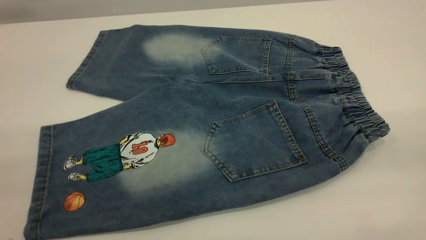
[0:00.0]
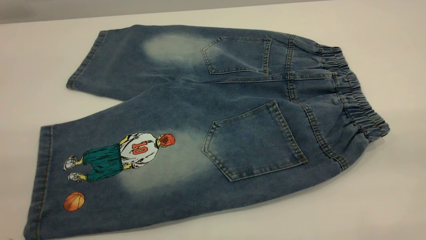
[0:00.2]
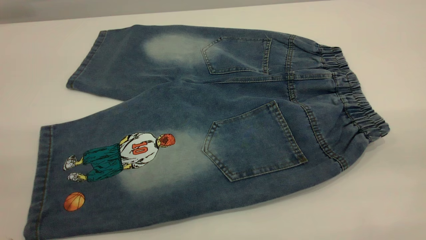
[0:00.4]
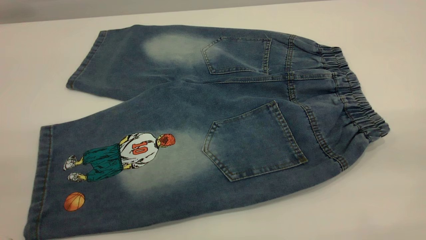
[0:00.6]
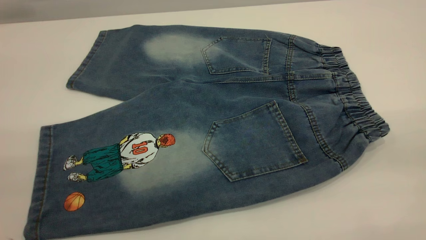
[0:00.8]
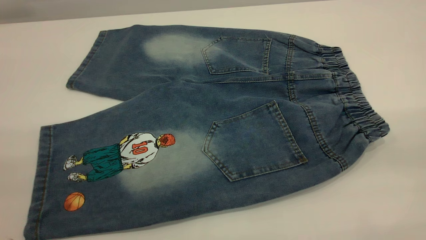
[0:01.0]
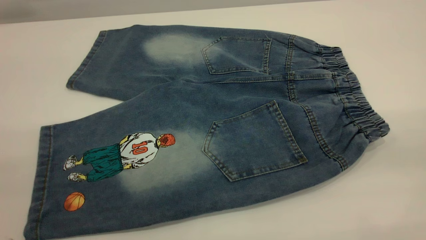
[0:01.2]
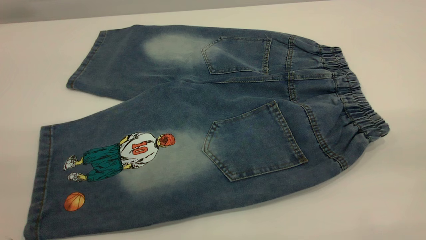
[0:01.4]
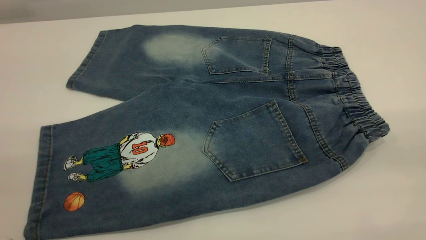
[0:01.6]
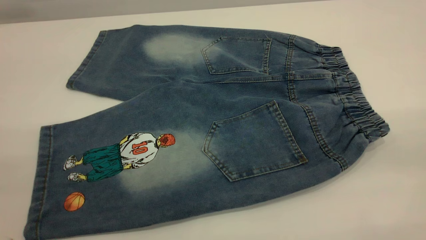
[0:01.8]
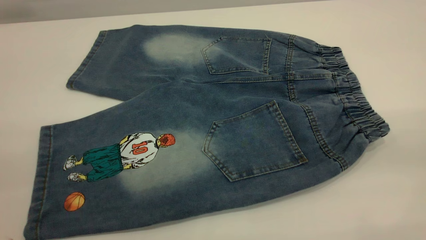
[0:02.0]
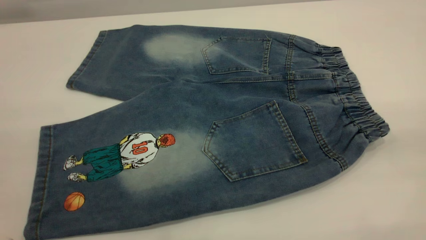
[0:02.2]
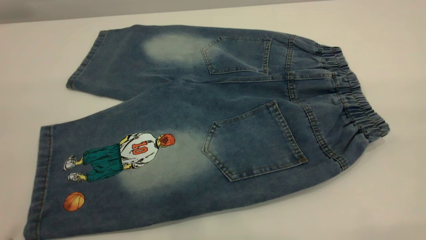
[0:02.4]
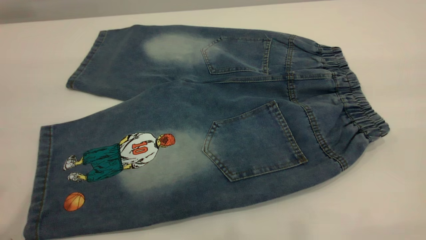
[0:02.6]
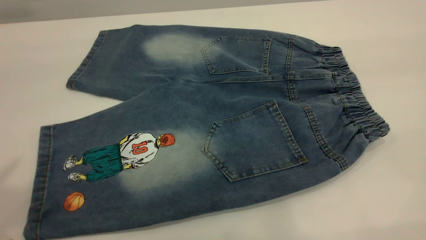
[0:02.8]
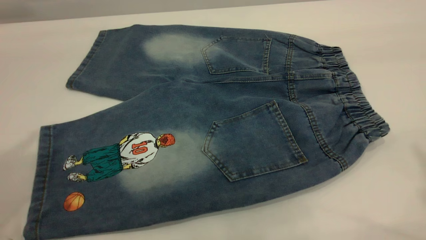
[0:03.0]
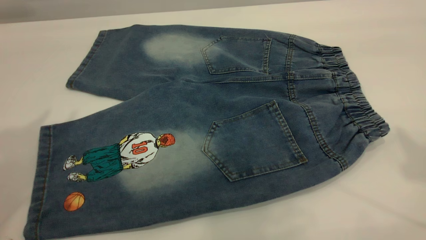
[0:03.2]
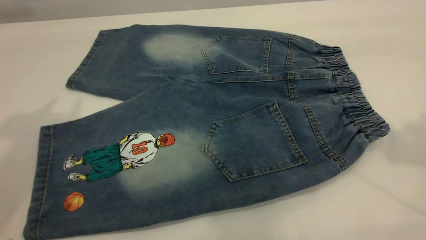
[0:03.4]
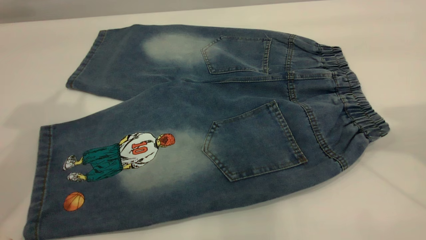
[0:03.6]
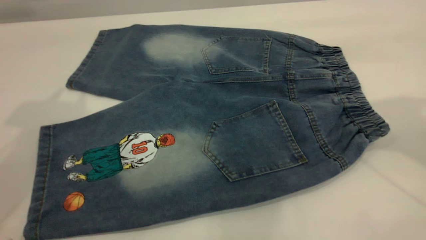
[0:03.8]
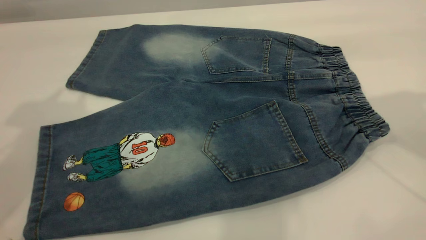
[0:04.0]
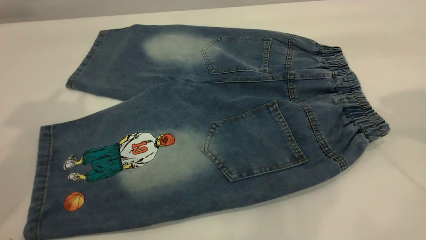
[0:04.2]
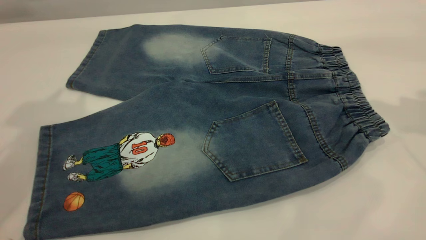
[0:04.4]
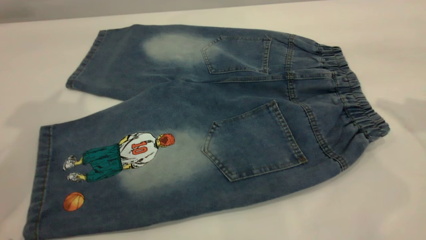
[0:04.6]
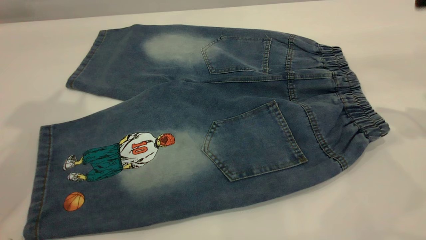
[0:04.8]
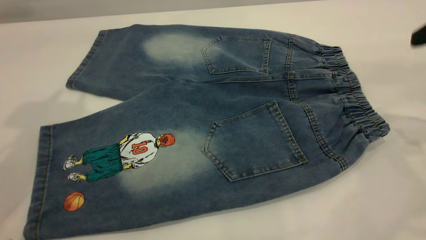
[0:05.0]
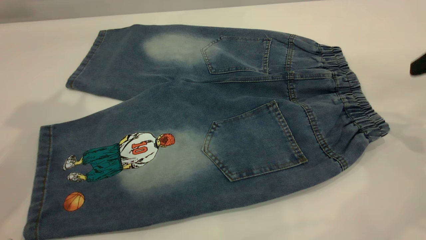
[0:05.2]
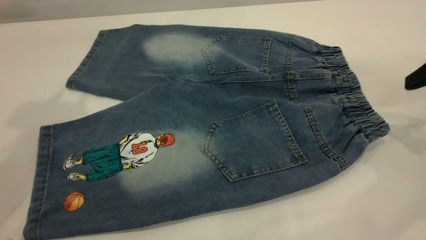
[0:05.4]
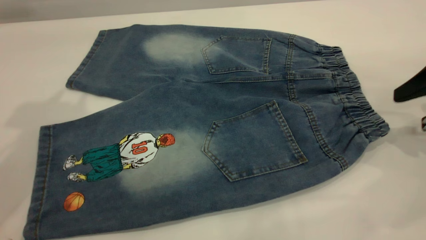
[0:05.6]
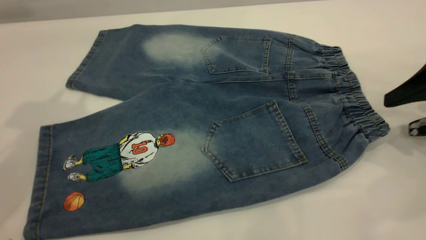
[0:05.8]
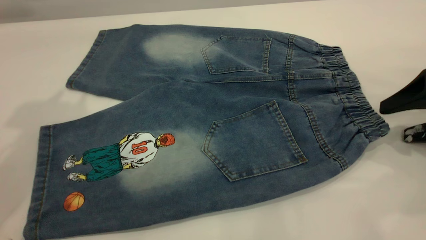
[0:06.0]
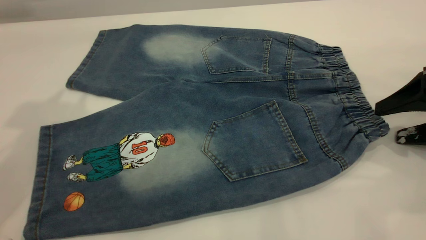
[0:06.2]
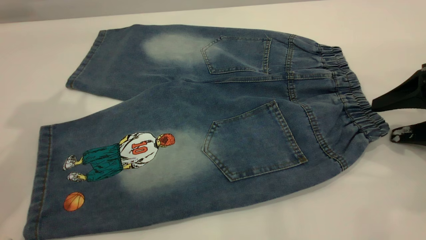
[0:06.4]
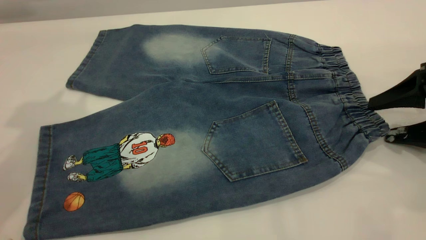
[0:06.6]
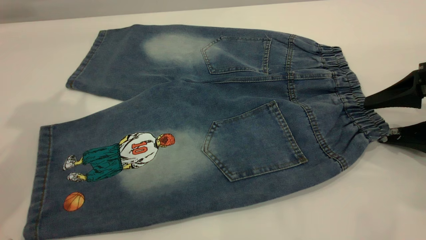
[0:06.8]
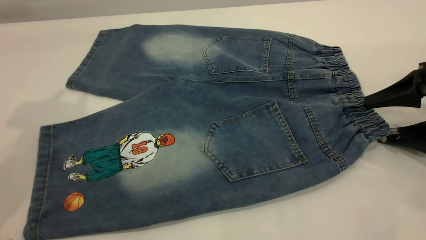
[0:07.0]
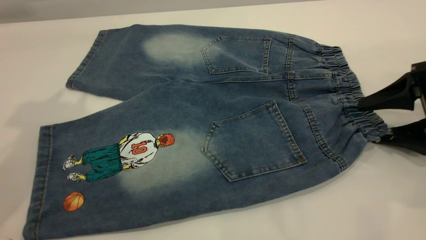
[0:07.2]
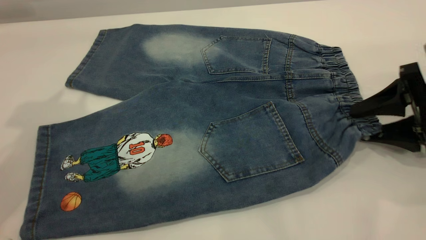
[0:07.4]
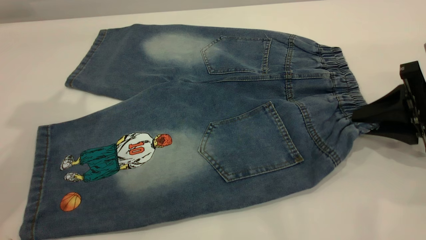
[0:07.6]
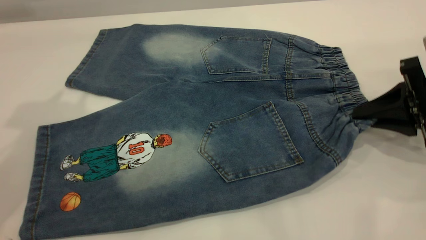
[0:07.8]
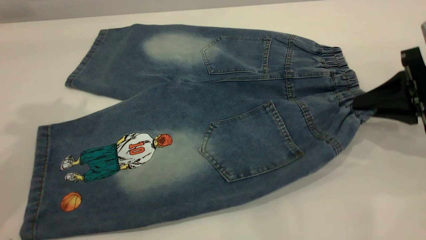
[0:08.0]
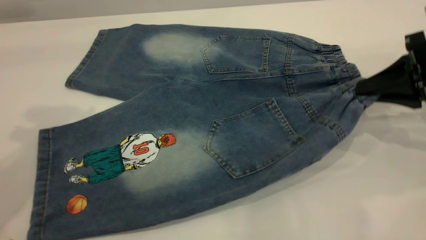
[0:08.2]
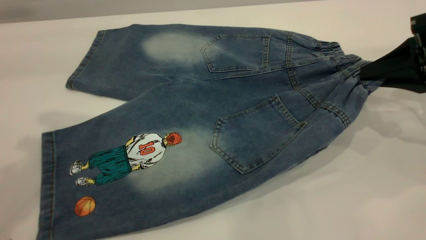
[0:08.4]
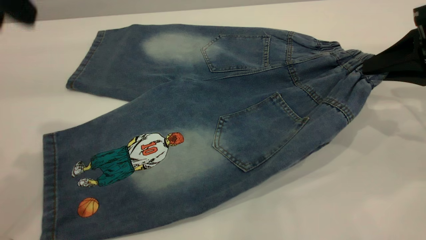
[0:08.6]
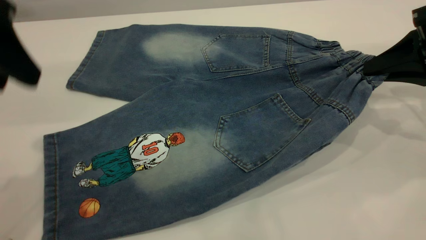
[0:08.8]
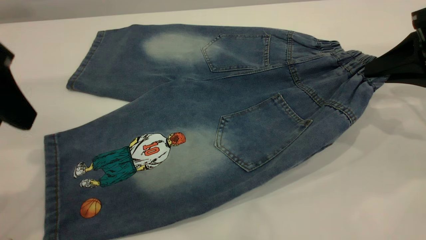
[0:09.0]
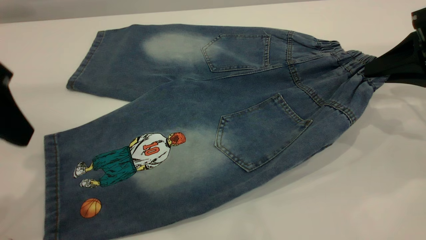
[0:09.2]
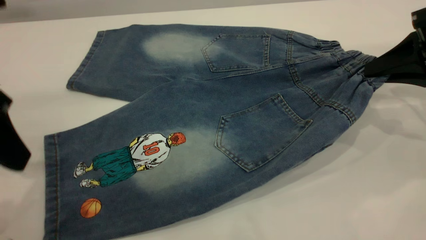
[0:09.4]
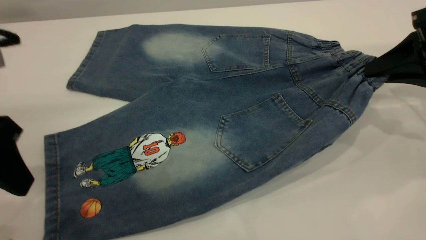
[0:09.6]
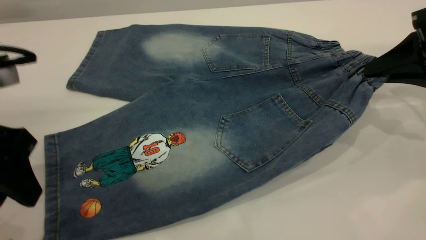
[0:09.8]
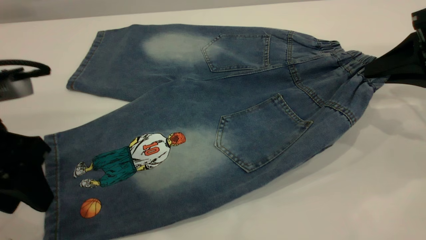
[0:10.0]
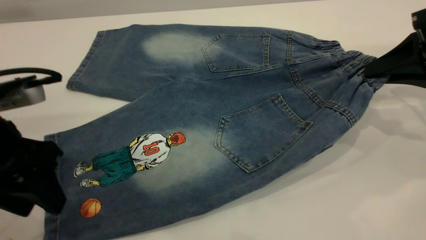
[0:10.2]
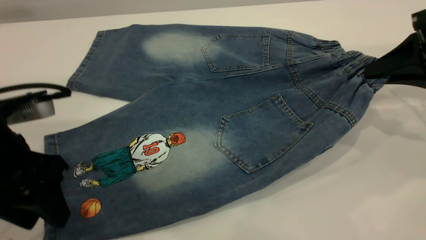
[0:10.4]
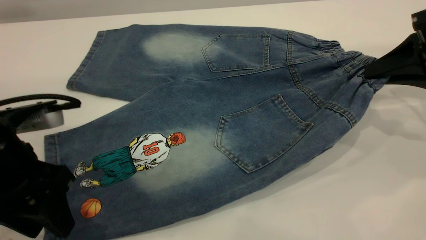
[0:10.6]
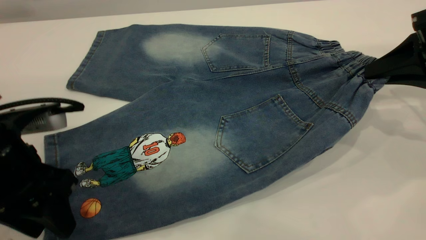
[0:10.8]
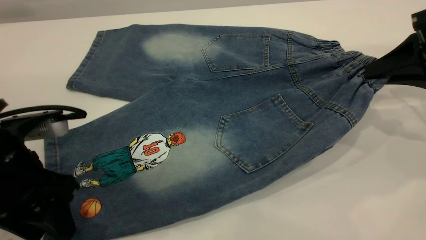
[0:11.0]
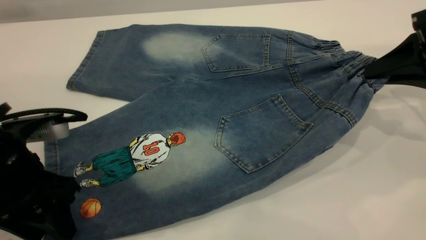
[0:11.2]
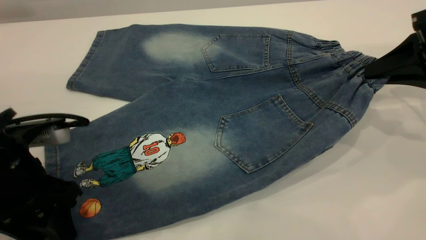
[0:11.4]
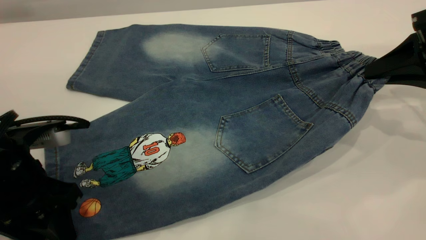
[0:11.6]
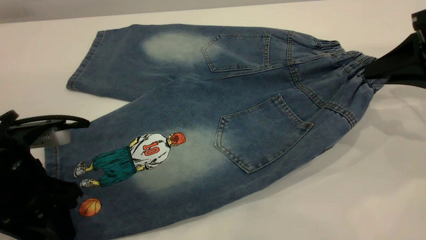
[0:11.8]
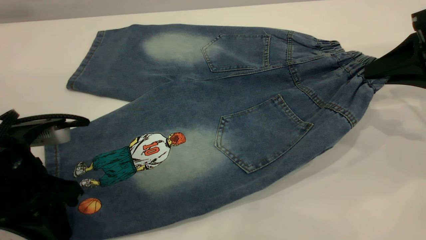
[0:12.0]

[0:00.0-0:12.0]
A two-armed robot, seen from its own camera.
0:00.0 to 0:01.6: Both grippers stay about where they are.
0:04.4 to 0:06.0: The right gripper moves downward, some 20 cm.
0:06.0 to 0:07.6: The right gripper closes its fingers.
0:07.6 to 0:09.0: The right gripper goes approximately 5 cm upward; the left gripper goes some 15 cm downward and backward.
0:09.0 to 0:10.4: The left gripper travels downward by about 10 cm.
0:10.4 to 0:12.0: The left gripper closes up.

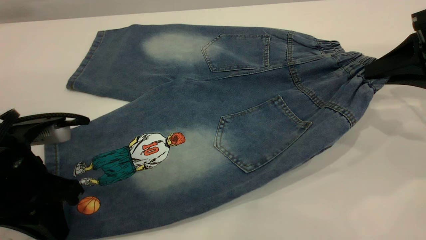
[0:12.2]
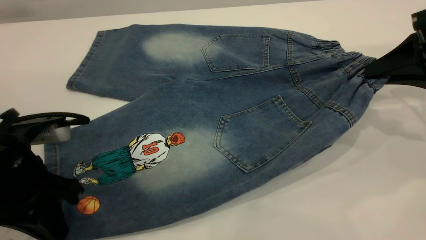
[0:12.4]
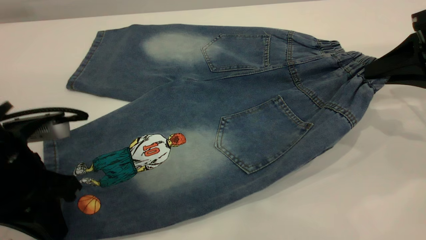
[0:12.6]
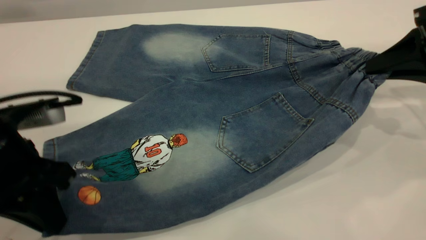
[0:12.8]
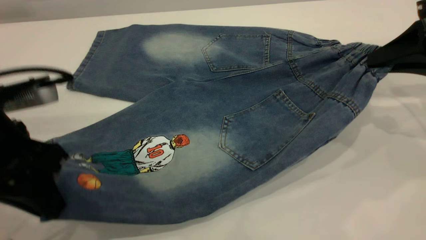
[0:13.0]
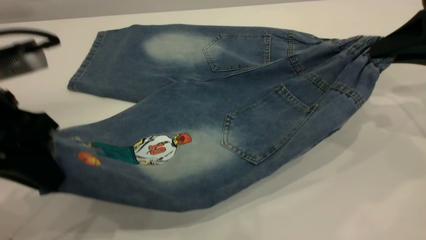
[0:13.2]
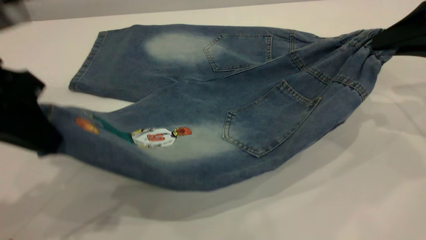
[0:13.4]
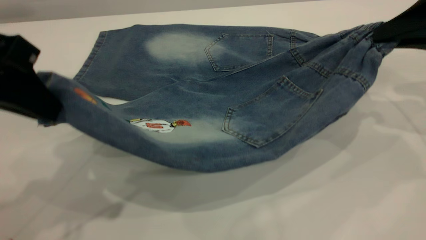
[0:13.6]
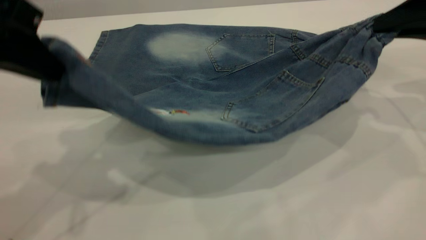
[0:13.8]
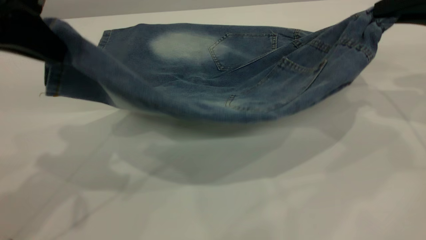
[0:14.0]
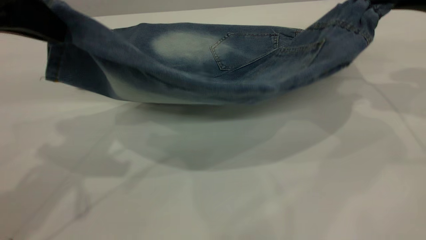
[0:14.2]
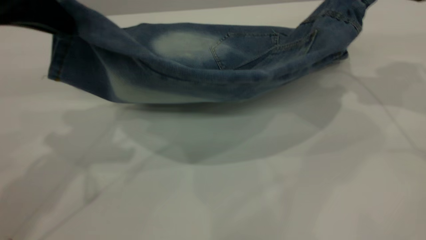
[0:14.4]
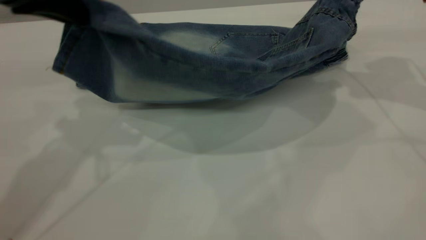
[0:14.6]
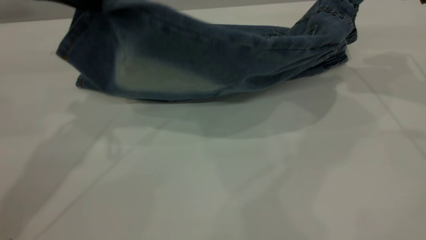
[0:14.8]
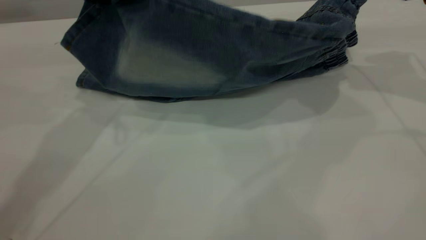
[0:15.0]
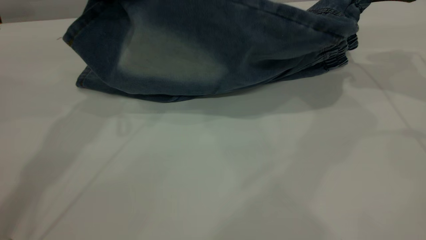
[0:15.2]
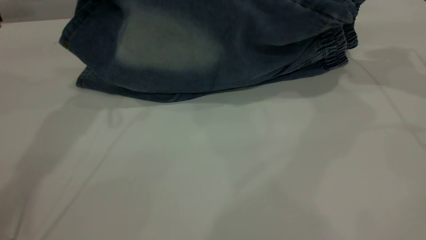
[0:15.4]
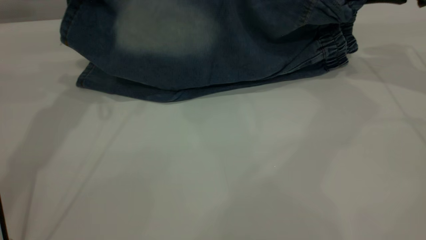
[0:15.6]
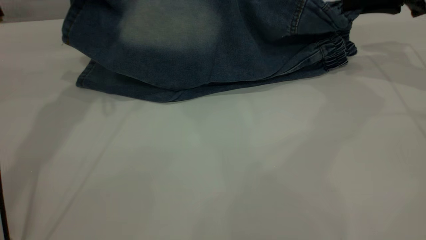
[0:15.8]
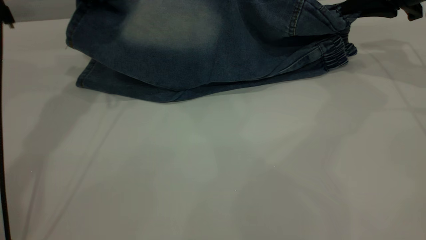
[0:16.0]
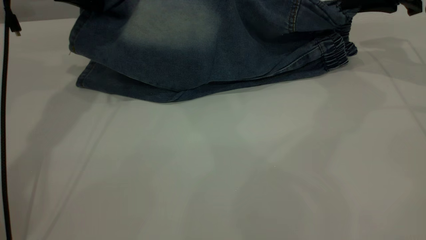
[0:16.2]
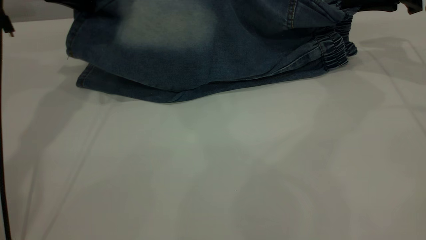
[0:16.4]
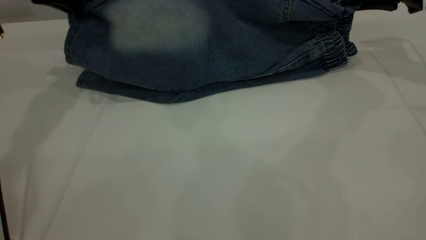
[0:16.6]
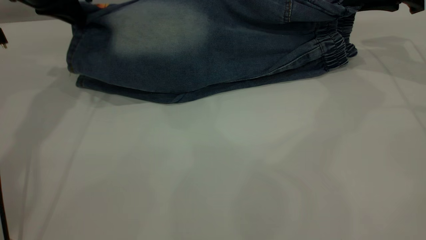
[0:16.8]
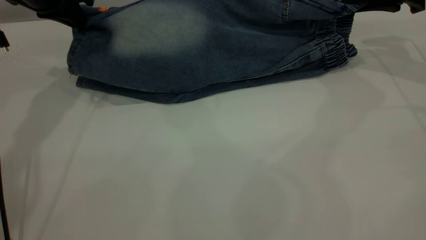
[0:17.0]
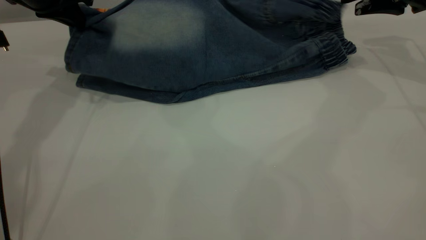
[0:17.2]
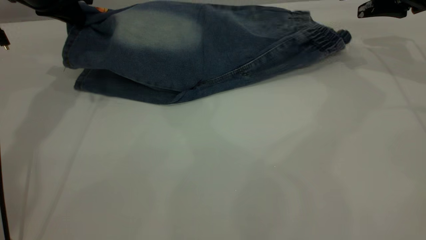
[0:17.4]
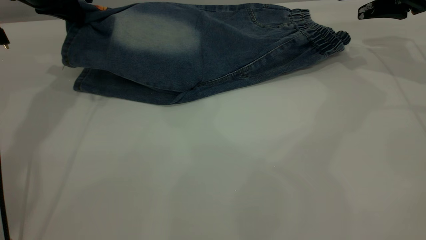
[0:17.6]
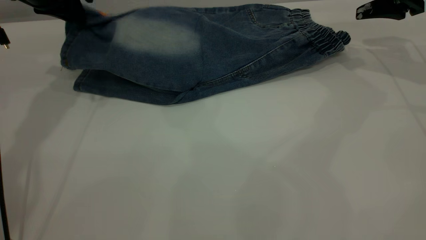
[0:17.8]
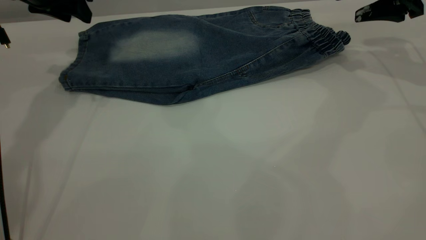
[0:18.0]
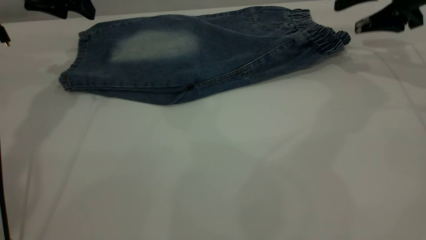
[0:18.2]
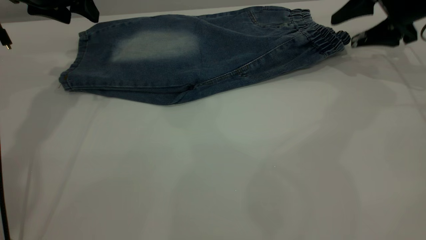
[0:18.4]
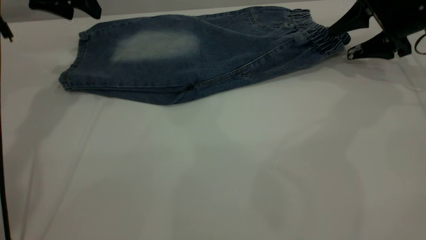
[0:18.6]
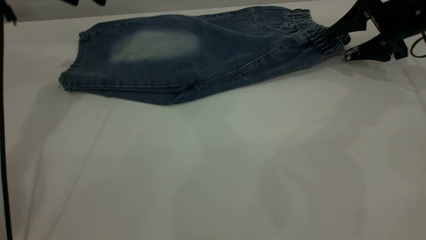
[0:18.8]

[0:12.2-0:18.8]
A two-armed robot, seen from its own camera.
Step, 0:12.2 to 0:18.0: Fold the bottom of the pants upward.
0:12.2 to 0:13.8: The left gripper shifts about 15 cm upward. The right gripper is displaced upward by about 5 cm.
0:13.8 to 0:15.4: The left gripper goes about 15 cm forward; the right gripper heads forward, covering roughly 10 cm.
0:15.4 to 0:17.2: The right gripper opens up. The left gripper moves downward, some 5 cm.
0:17.2 to 0:18.8: The left gripper opens its fingers, while the right gripper moves downward, roughly 5 cm.
